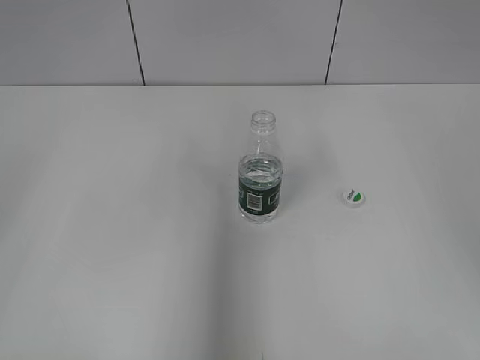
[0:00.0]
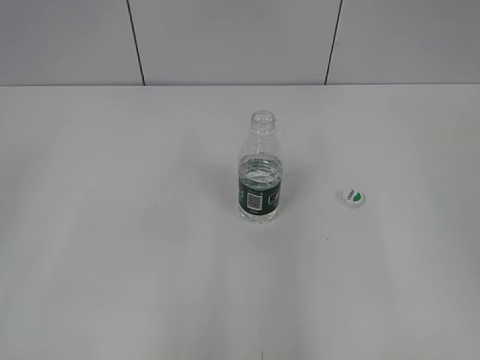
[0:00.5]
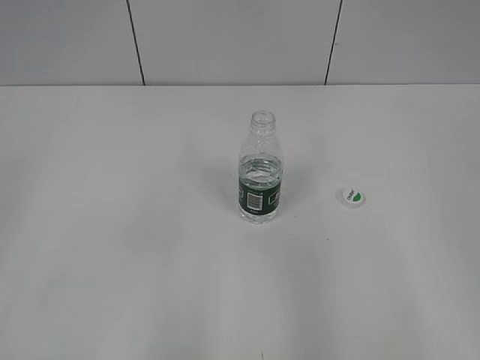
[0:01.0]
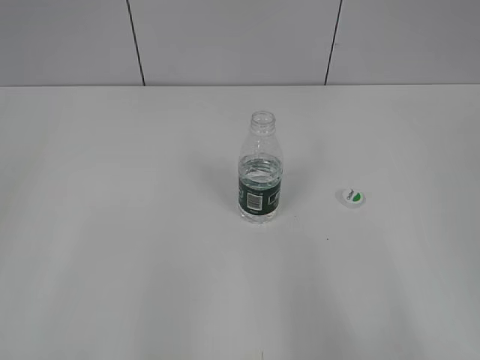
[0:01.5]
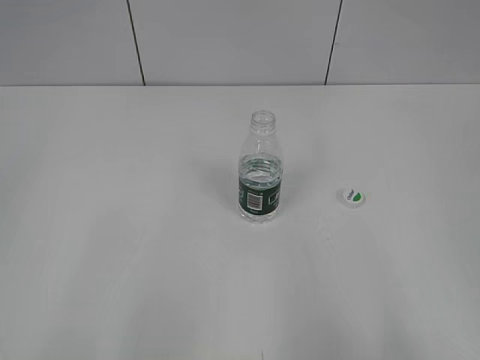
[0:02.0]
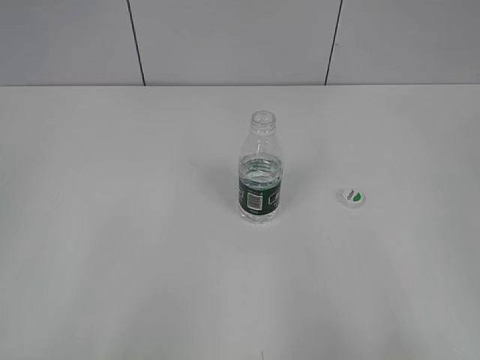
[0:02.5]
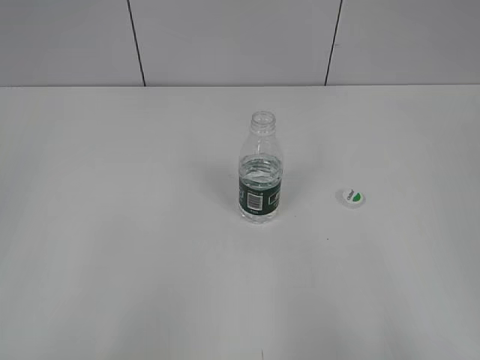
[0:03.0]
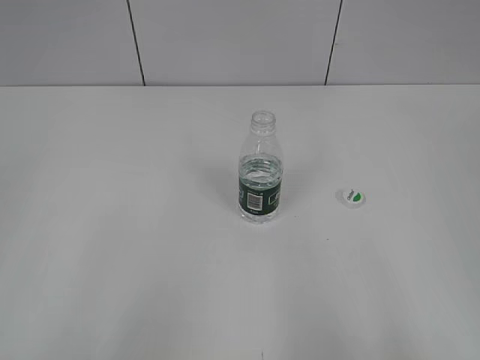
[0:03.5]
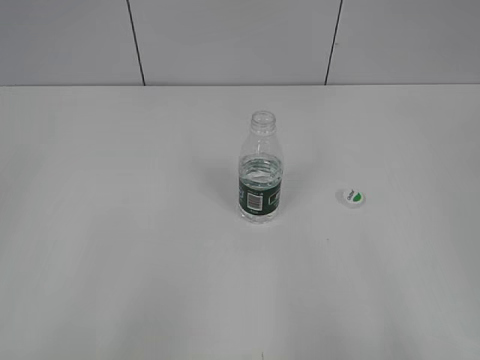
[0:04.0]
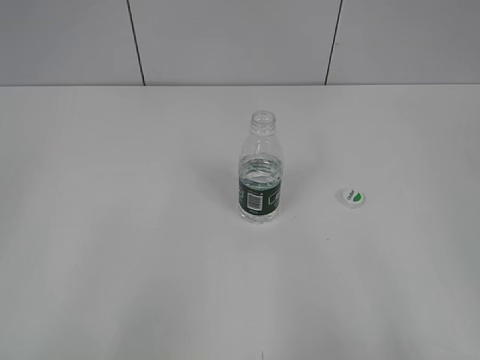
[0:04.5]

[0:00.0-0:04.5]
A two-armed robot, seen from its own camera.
0:00.0 to 0:02.0: The right gripper travels backward by approximately 20 cm; the left gripper is displaced backward by about 15 cm.

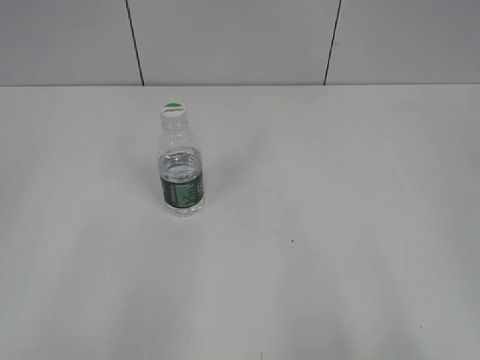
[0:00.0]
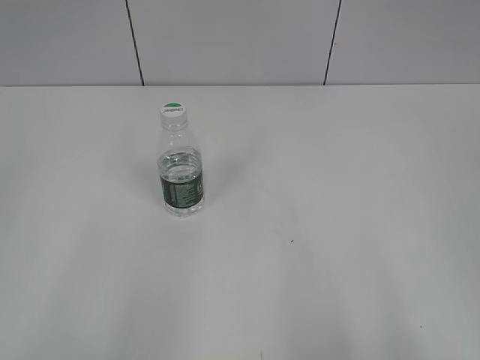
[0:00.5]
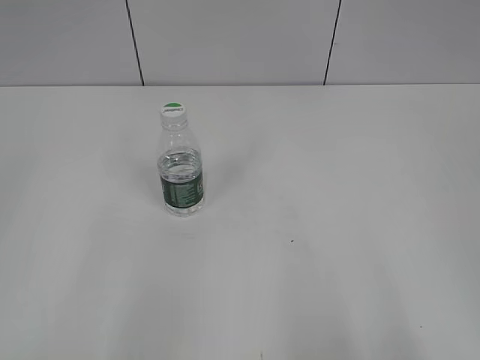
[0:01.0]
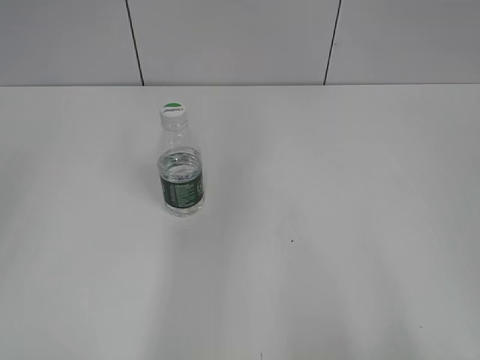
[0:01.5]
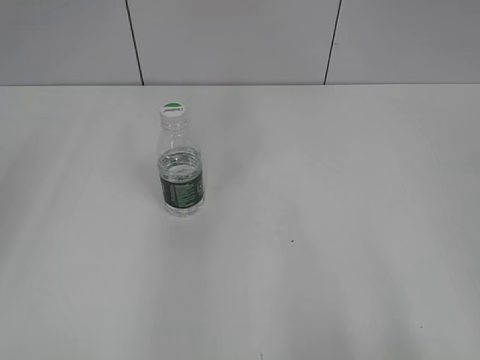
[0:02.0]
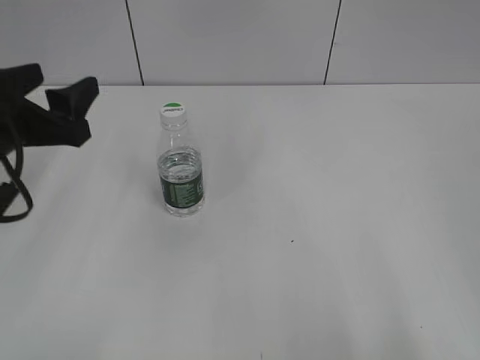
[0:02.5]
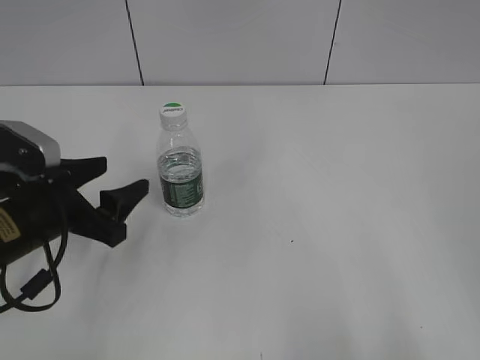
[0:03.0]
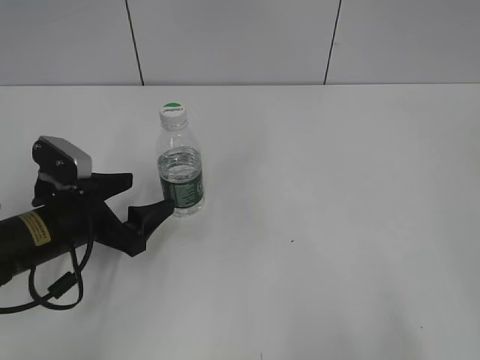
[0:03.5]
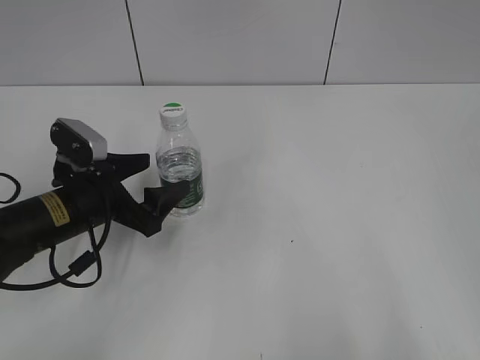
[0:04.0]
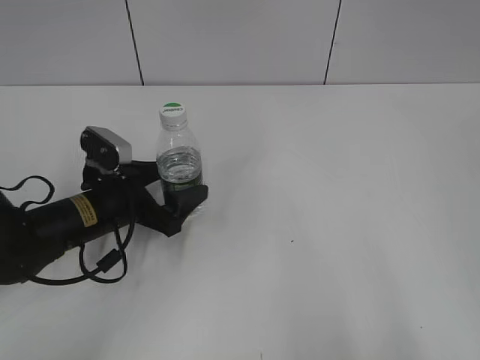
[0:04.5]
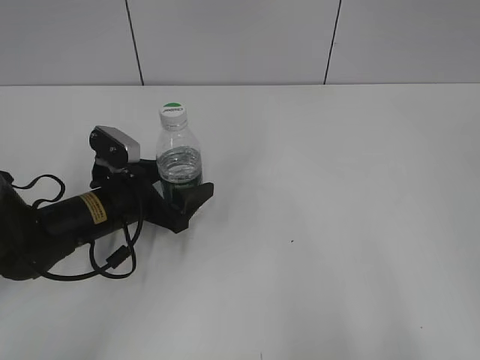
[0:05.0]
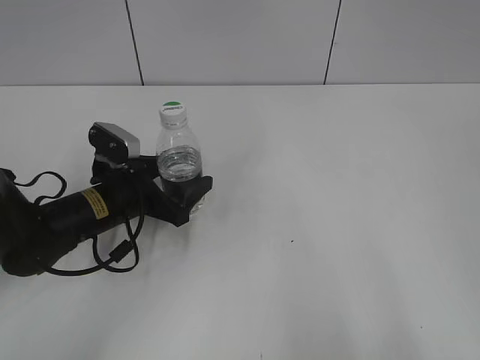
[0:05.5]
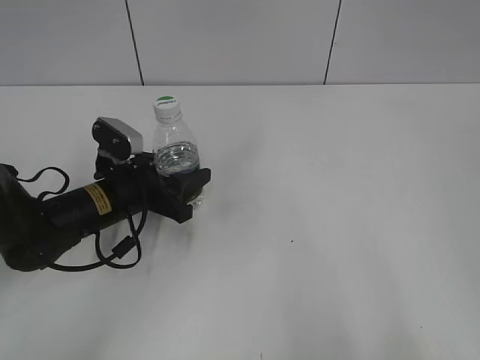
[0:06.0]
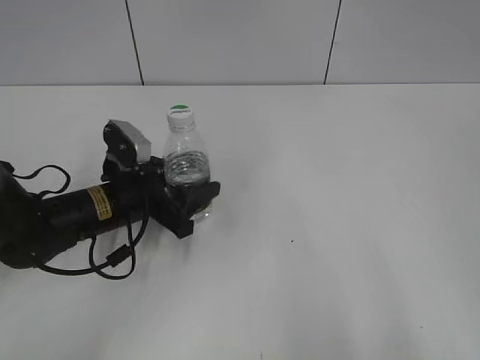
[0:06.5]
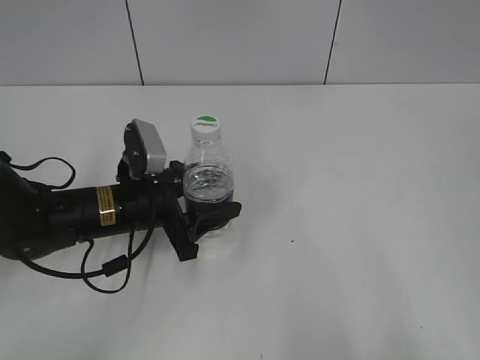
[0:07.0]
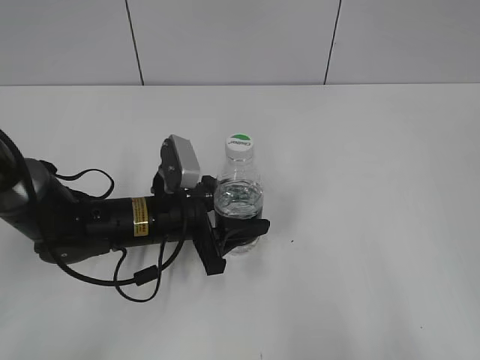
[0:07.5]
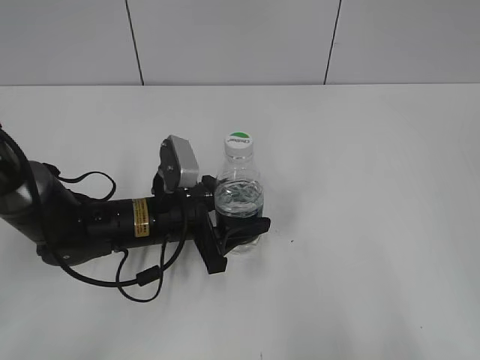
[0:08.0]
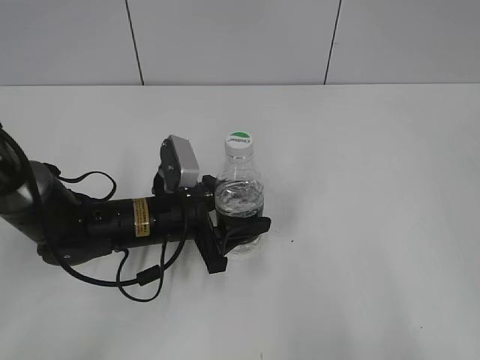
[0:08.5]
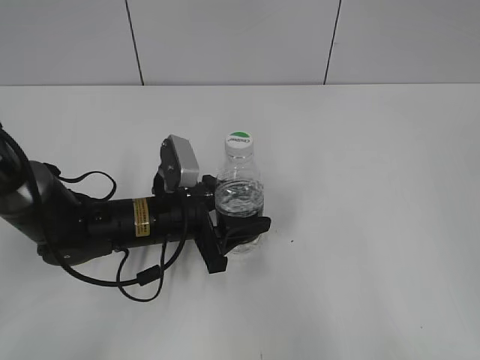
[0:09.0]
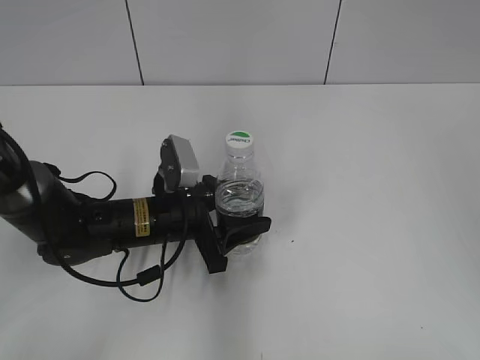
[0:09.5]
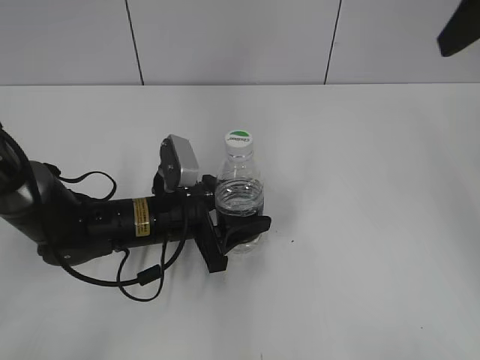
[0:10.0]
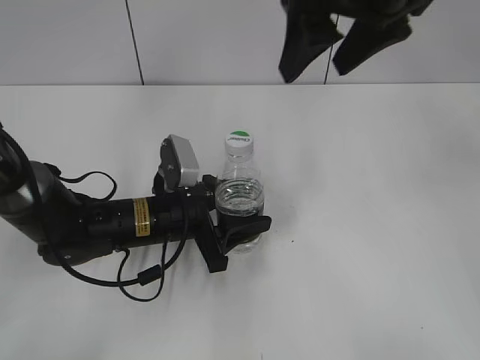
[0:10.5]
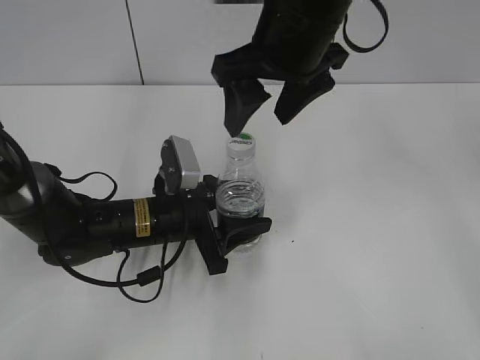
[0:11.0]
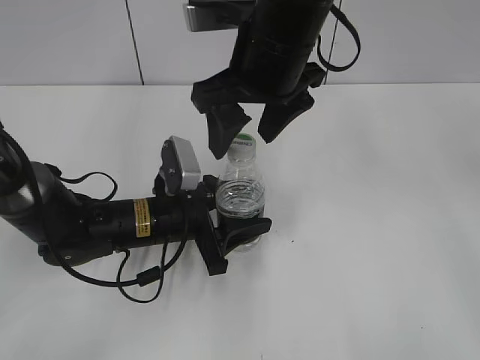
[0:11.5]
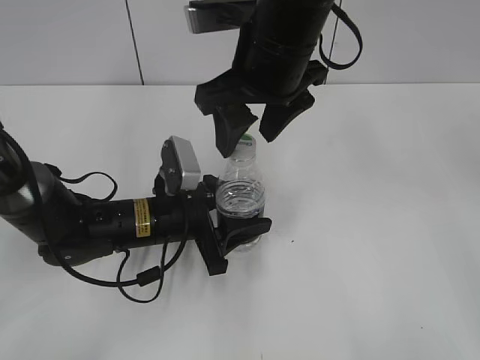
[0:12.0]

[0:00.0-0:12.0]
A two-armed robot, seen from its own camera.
Step, 0:00.0 to 0:06.0: Grasp the bottle and move it to the center of the table with the left gripper.
Step, 0:06.5 to 0:08.5: Lift the bottle and move it to the center of the table with the left gripper.
0:02.0 to 0:04.0: The left gripper goes approximately 25 cm downward and to the right, and opens up.
0:04.0 to 0:06.0: The left gripper changes place by approximately 5 cm, and closes up.
0:06.0 to 0:08.0: The left gripper shifts approximately 5 cm to the right.
0:08.0 to 0:10.0: The right gripper heads forward, covering some 30 cm.
0:10.0 to 0:12.0: The right gripper shifts roughly 25 cm to the left and downward.

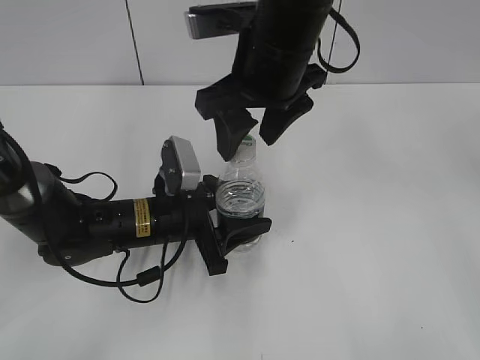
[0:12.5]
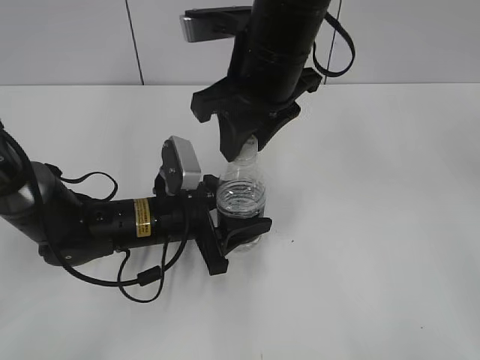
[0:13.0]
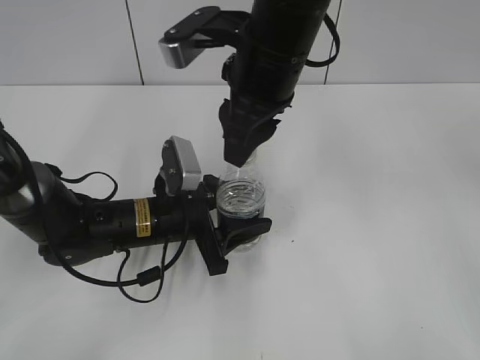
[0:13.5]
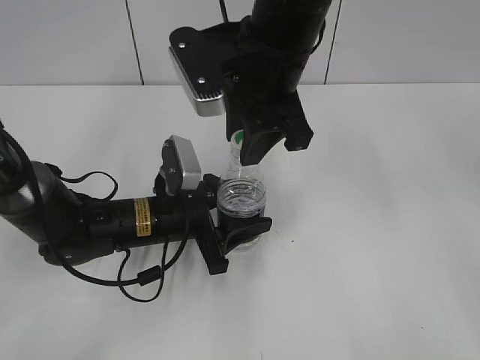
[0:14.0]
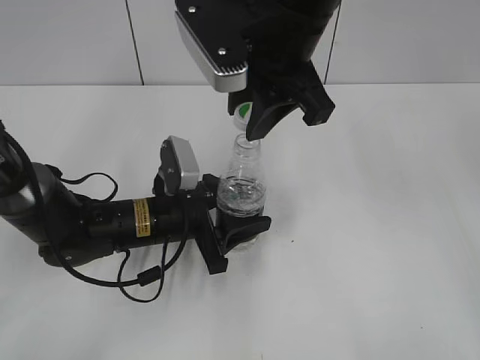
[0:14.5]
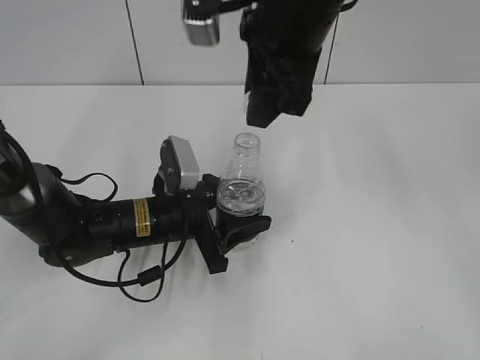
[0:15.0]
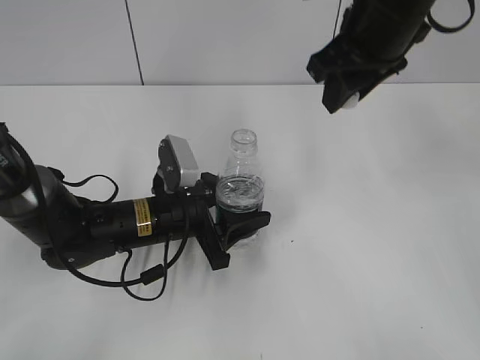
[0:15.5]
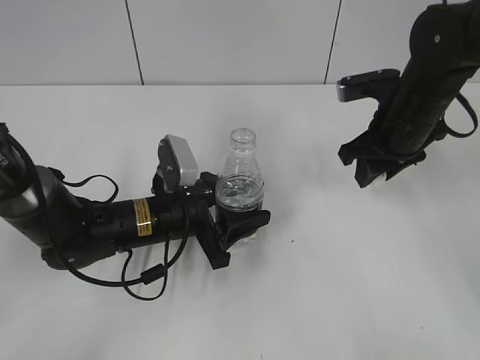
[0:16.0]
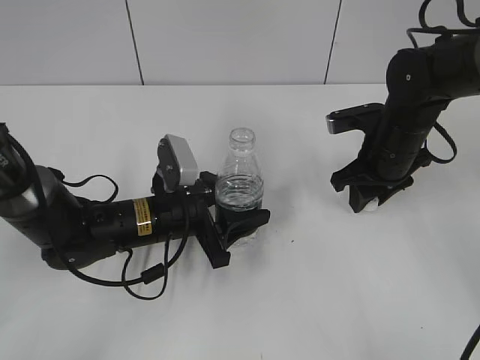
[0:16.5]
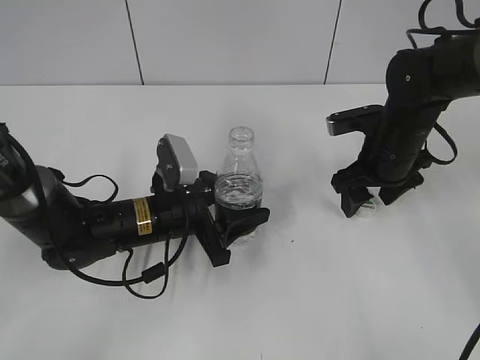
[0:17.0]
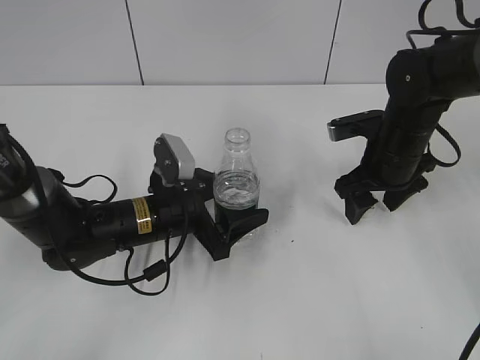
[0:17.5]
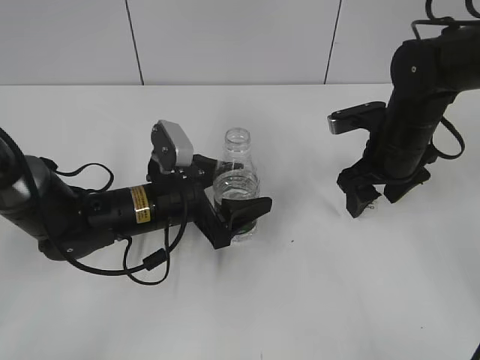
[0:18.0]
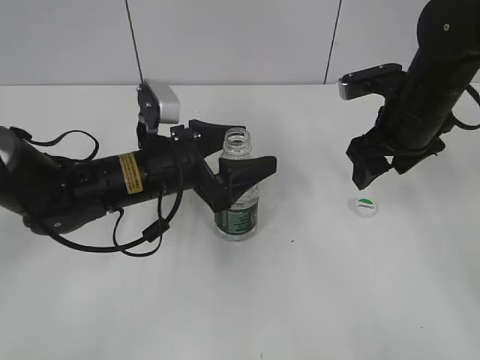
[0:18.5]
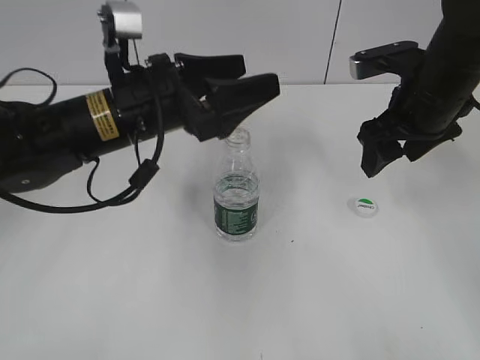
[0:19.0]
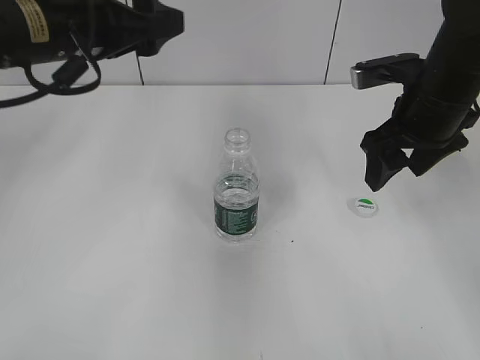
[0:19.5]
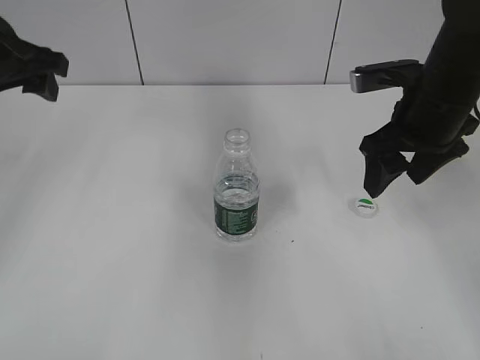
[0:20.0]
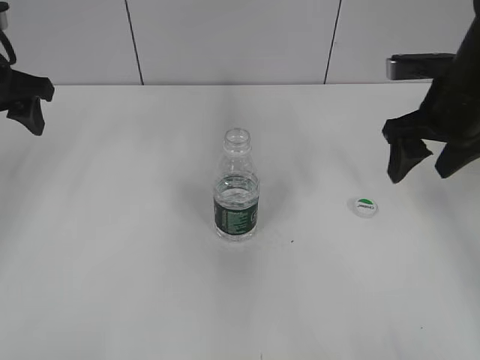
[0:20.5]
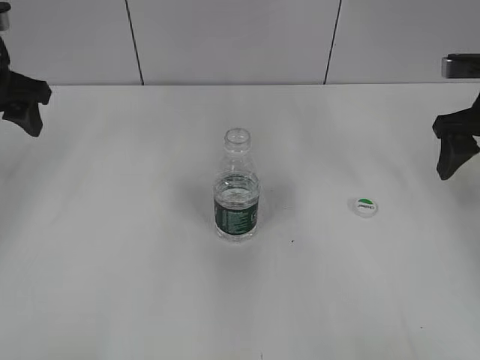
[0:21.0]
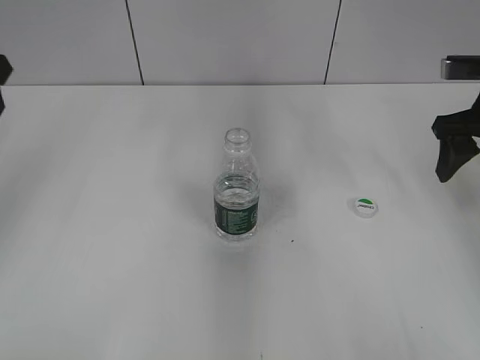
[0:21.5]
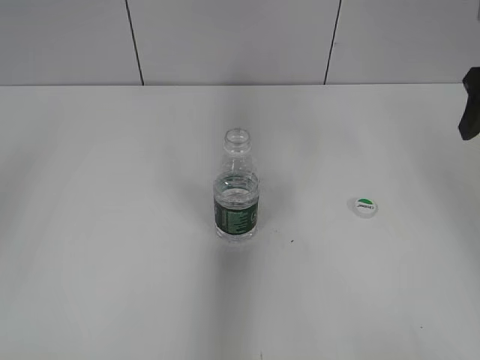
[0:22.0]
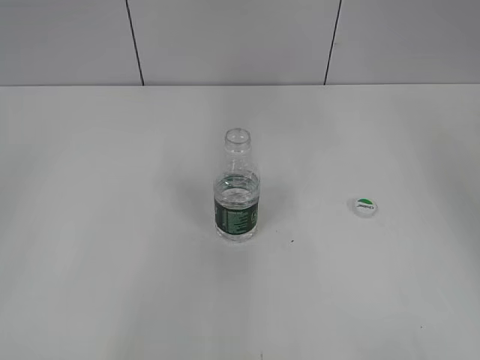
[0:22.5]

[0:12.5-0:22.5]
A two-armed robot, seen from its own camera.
Step, 0:12.5 to 0:14.5: Unscrew the bottle cap with the right gripper while holding the bottle with the left gripper.
Step, 0:15.0 to 0:17.0: Place the bottle cap on the table with the right gripper.
Step, 0:17.5 to 0:18.5: Place the bottle on the table with the left gripper.
0:12.5 to 0:14.5: The right gripper closes up.
0:14.5 to 0:16.5: The right gripper moves downward and to the right, some 25 cm.
0:16.5 to 0:18.5: The two grippers go approximately 5 cm upward. The right gripper opens; the left gripper opens up.
0:18.5 to 0:20.5: The left gripper heads to the left and upward, covering about 25 cm.
0:20.5 to 0:22.5: The right gripper travels upward, to the right and backward by some 15 cm; the left gripper heads backward, covering approximately 30 cm.
